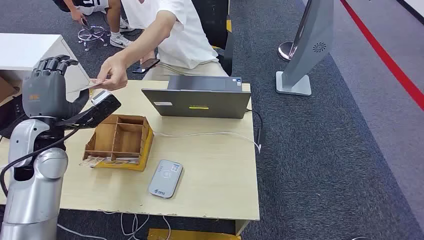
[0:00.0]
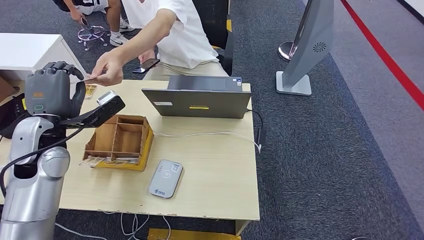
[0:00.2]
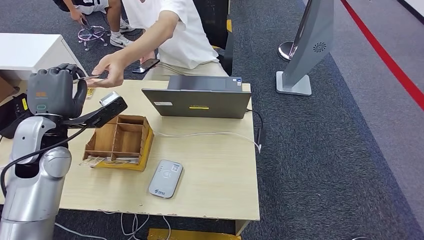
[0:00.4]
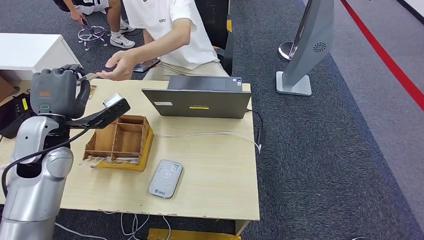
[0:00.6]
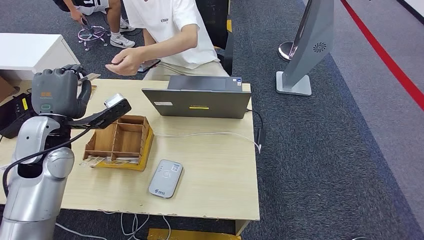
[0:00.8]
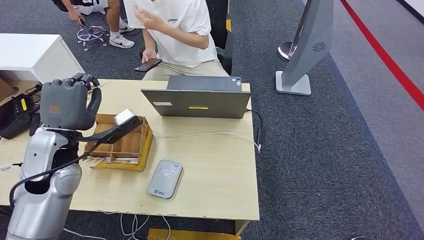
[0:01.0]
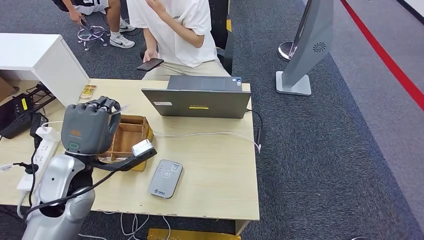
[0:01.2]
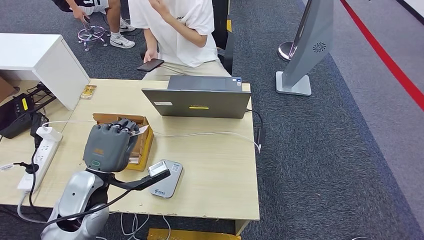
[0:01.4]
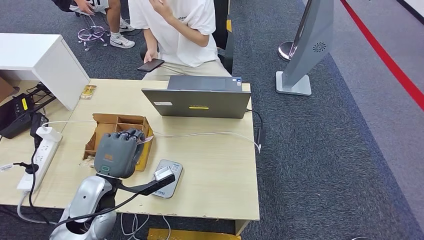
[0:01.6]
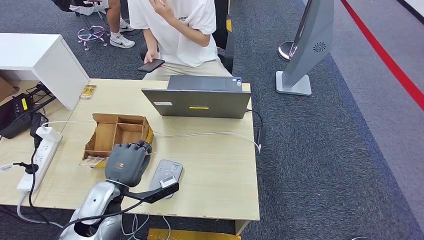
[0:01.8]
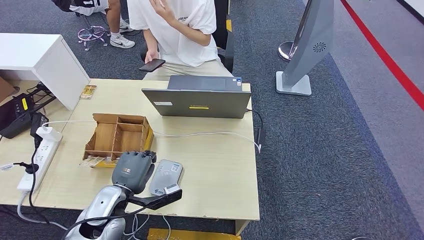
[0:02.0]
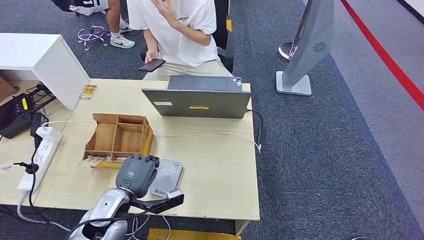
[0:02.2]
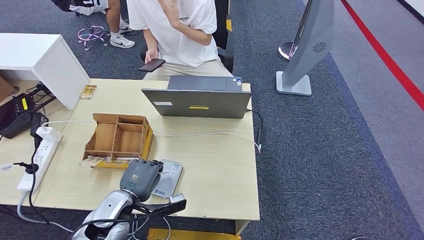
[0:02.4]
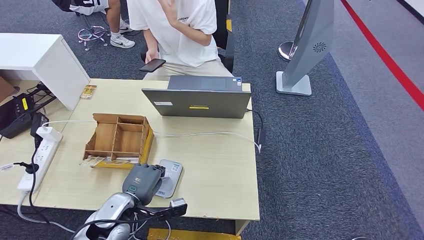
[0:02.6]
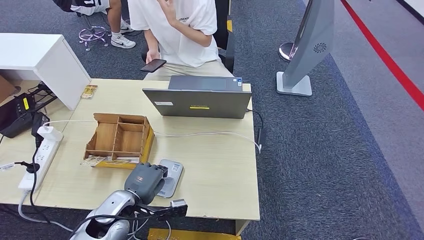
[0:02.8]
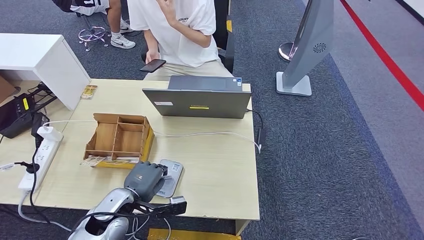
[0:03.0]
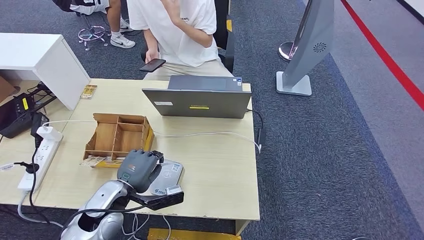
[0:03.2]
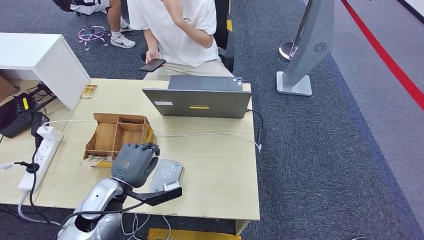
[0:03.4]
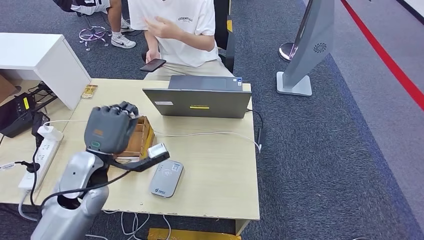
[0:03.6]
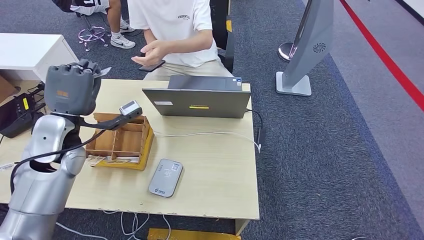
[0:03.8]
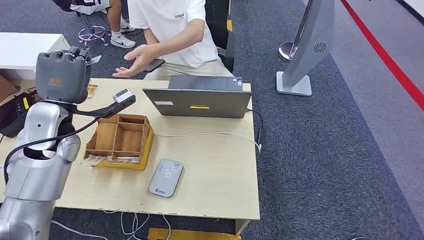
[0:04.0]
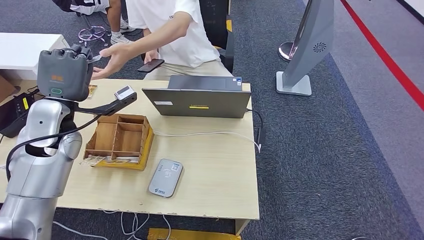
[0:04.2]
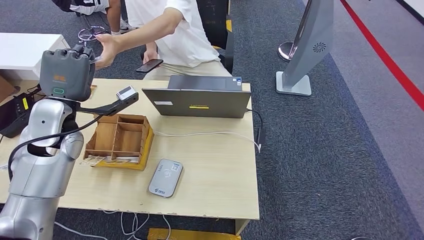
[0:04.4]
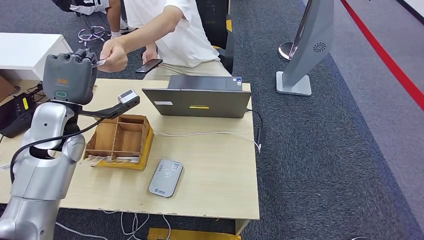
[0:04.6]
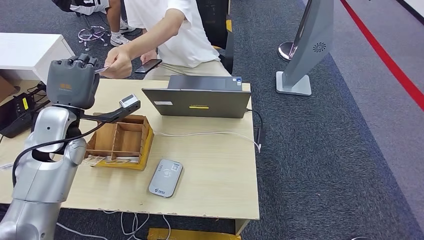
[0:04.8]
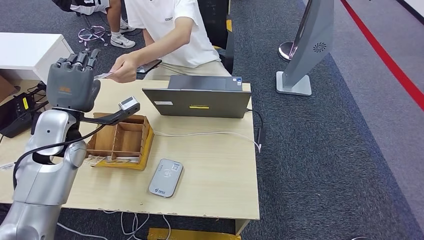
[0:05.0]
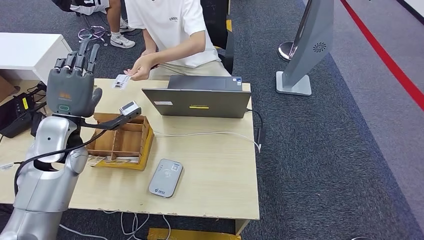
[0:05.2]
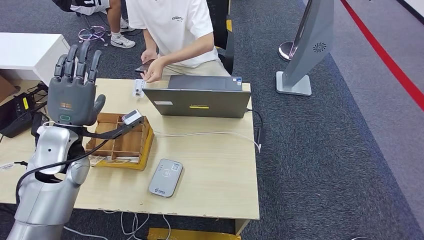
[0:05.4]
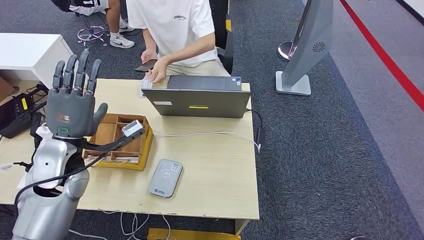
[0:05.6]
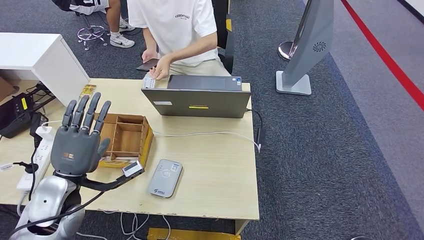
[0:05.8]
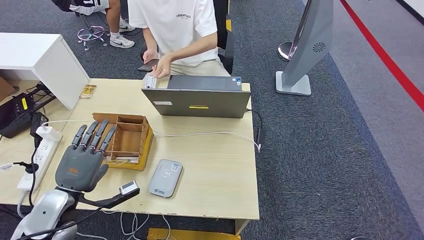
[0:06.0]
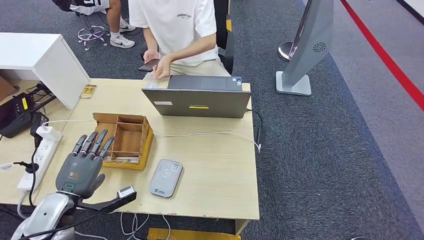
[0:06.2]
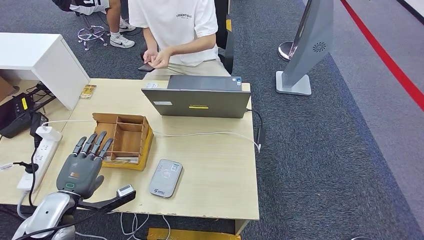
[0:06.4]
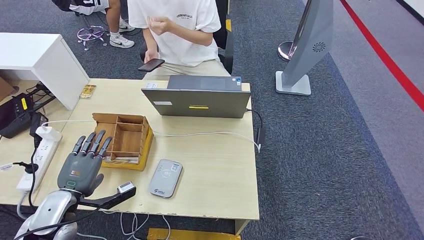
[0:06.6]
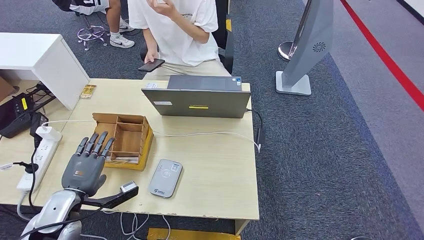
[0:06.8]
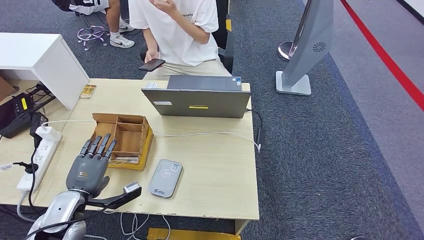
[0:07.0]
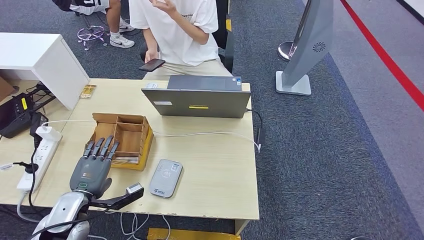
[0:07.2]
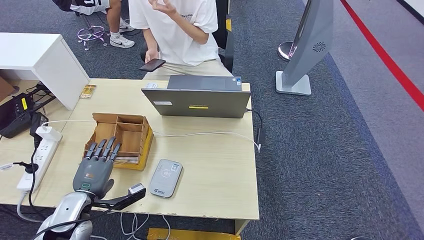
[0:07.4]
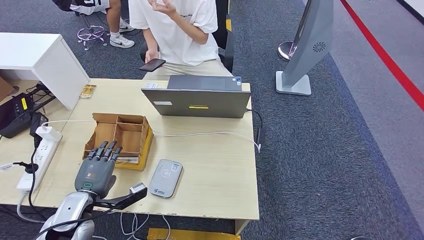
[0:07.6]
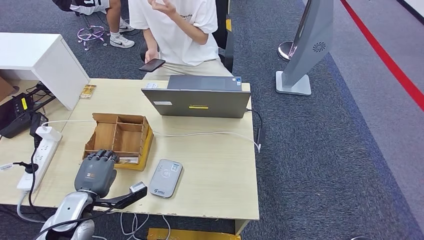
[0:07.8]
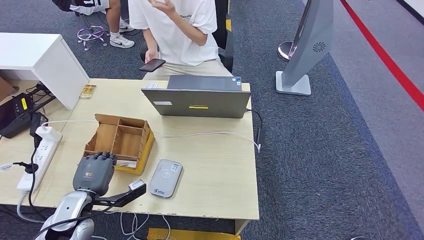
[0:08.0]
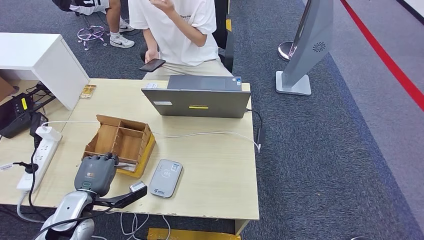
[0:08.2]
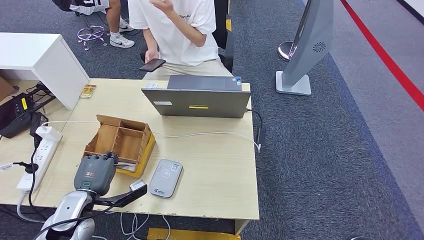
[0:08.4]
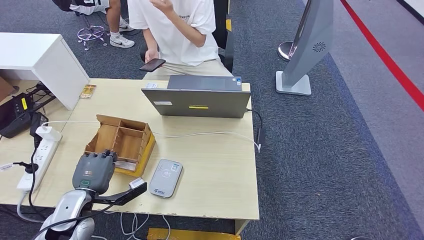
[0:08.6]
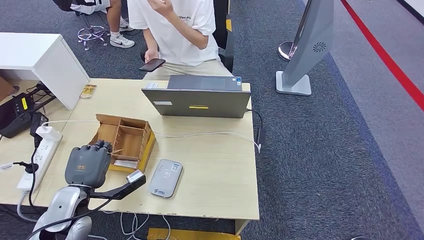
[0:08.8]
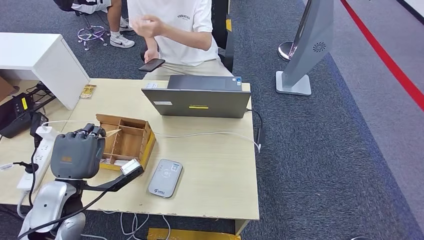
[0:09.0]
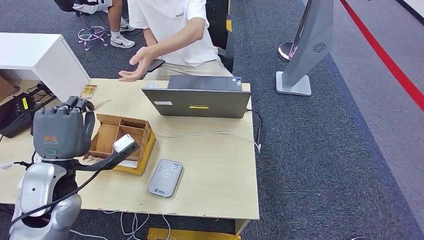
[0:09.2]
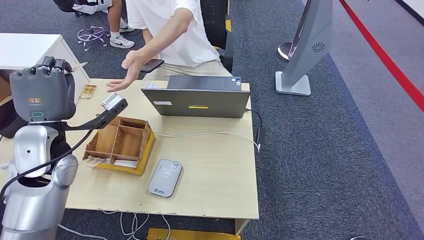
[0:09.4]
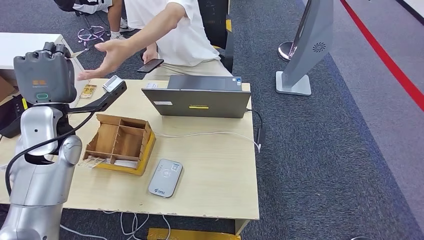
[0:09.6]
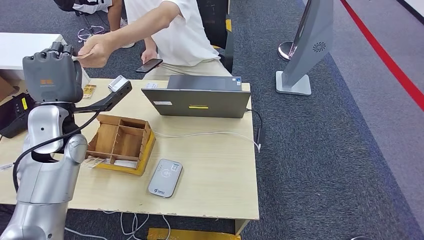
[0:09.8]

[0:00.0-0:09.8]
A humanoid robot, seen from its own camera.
Step, 0:00.0 to 0:01.4: Take the ID card from the person's hand.
Step, 0:01.8 to 0:04.2: Place the ID card on the card reader.
Step, 0:04.4 to 0:07.0: Hand the ID card to the person.
Step, 0:07.2 to 0:09.0: Pick up the room key from the key card box.
0:01.4 to 0:02.8: The left hand is displaced downward by about 10 cm.
0:02.8 to 0:04.2: The left hand moves upward and forward, roughly 25 cm.
0:04.2 to 0:05.6: The left hand heads backward and downward, covering approximately 10 cm.
0:05.6 to 0:07.0: The left hand moves downward and backward, approximately 15 cm.
0:07.0 to 0:08.4: The hands move only a little.

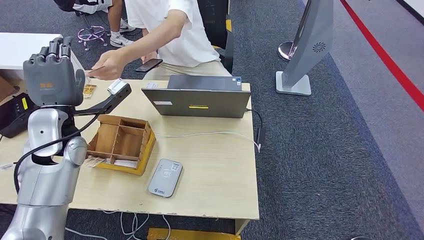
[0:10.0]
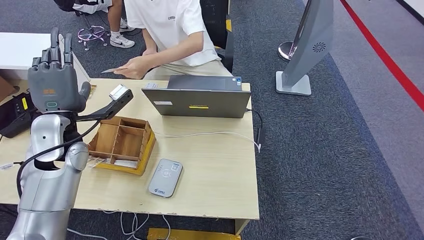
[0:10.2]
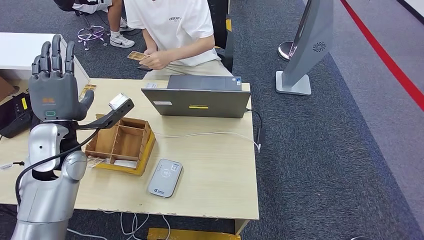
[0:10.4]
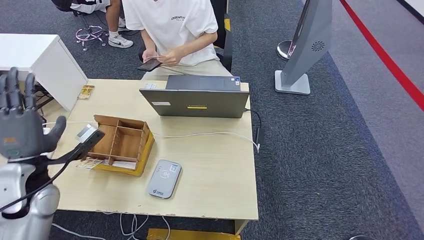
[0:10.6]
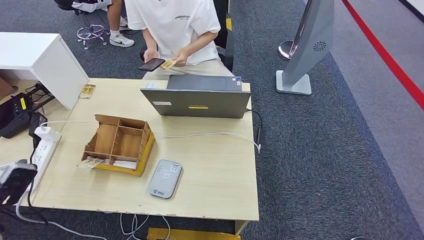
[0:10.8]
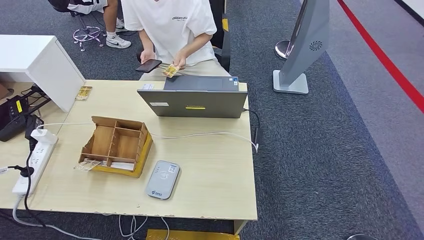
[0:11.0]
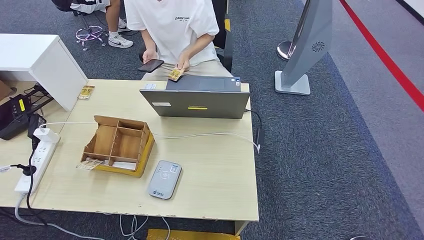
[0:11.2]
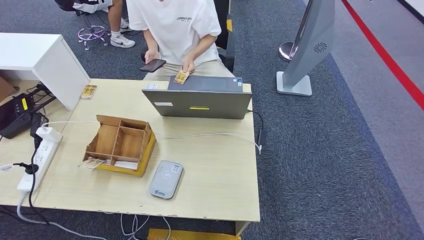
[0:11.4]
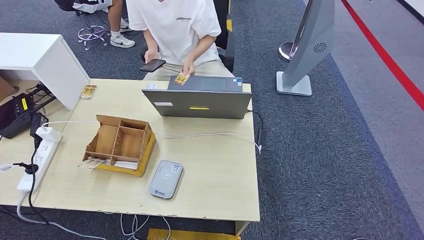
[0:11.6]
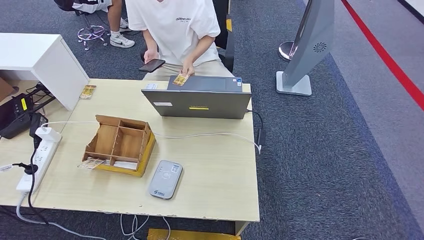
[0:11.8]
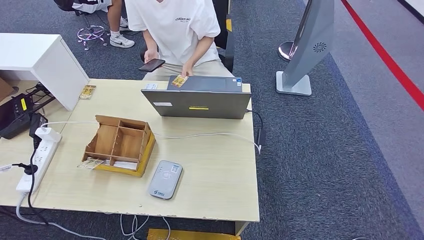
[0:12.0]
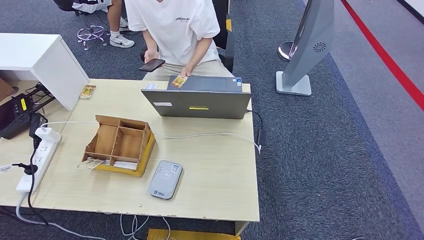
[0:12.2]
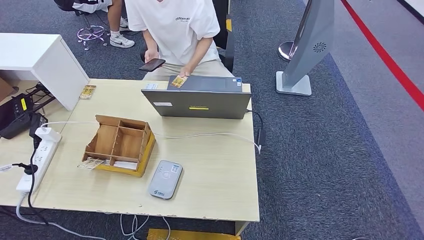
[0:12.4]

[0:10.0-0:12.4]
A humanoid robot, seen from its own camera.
Step, 0:10.0 to 0:12.4: Hand the room key to the person.
0:11.2 to 0:12.4: The left hand moves to the right and downward, roughly 30 cm.
